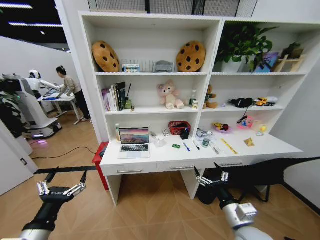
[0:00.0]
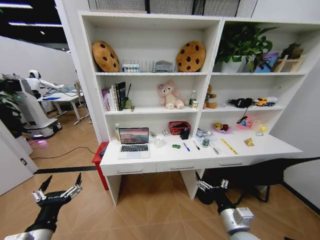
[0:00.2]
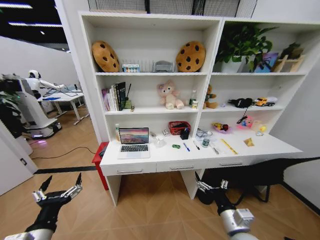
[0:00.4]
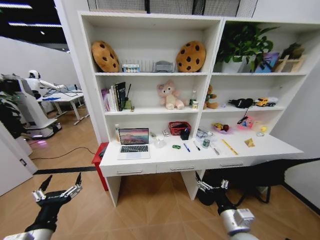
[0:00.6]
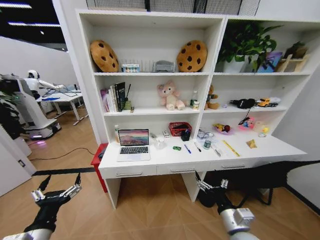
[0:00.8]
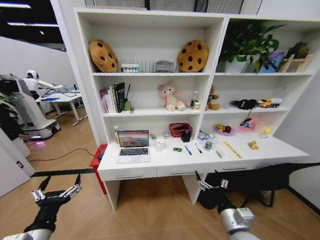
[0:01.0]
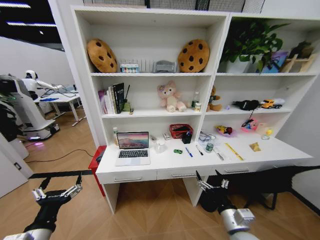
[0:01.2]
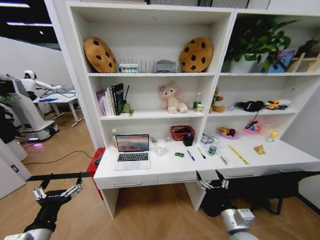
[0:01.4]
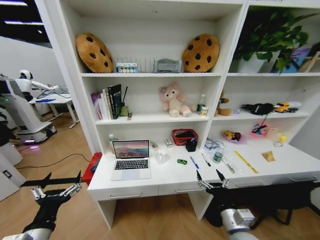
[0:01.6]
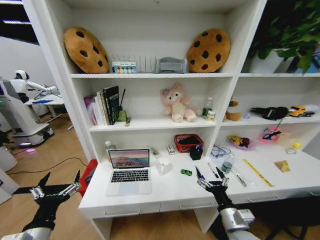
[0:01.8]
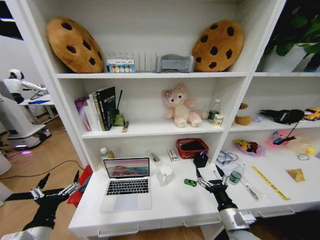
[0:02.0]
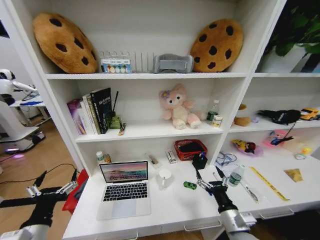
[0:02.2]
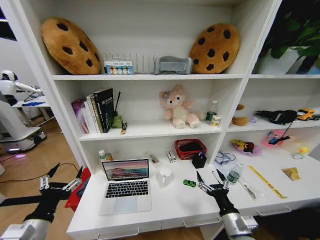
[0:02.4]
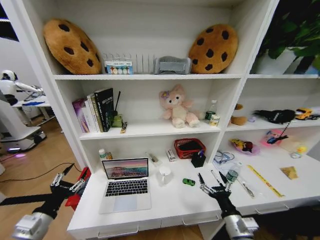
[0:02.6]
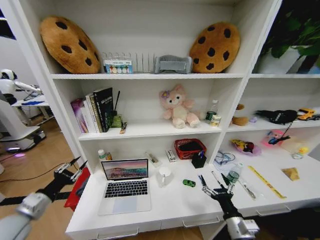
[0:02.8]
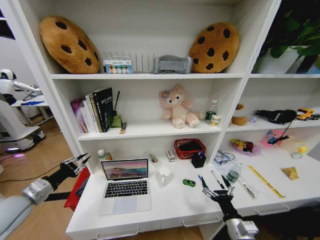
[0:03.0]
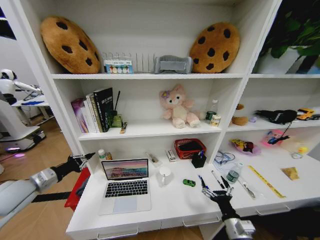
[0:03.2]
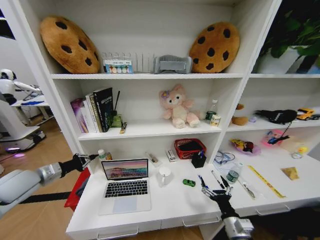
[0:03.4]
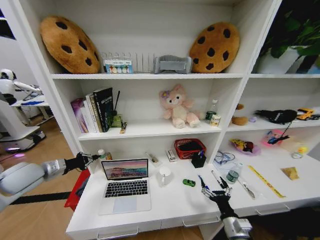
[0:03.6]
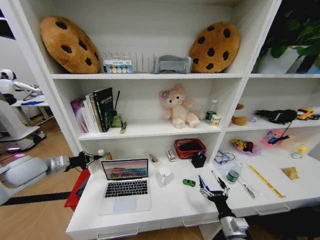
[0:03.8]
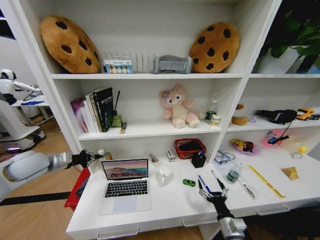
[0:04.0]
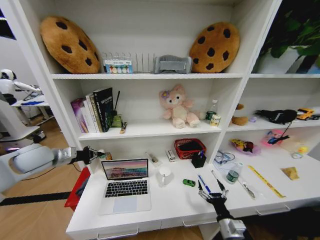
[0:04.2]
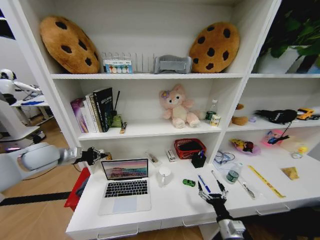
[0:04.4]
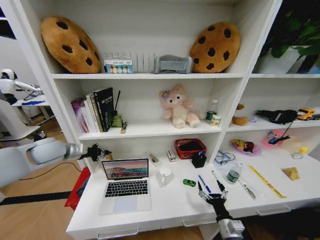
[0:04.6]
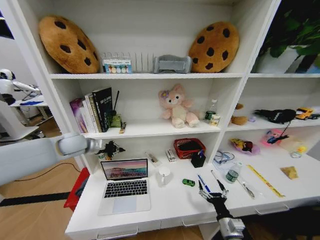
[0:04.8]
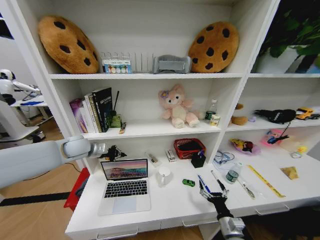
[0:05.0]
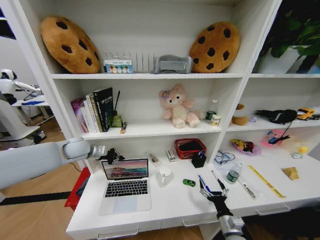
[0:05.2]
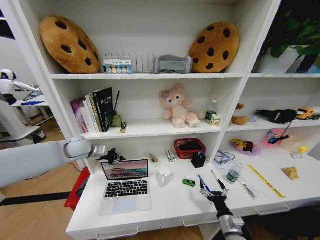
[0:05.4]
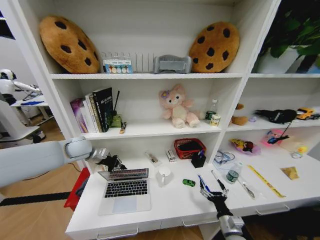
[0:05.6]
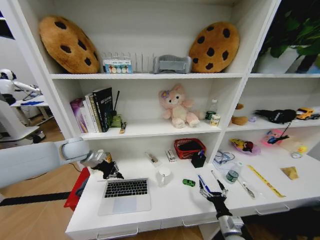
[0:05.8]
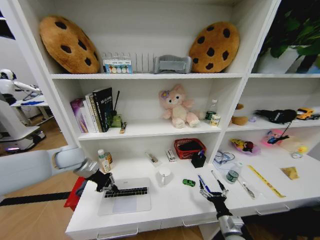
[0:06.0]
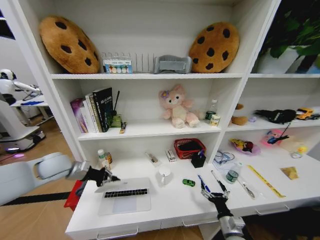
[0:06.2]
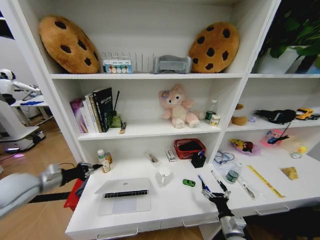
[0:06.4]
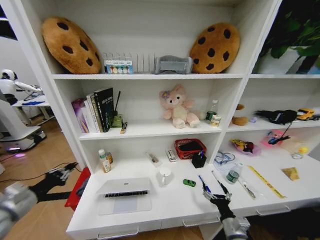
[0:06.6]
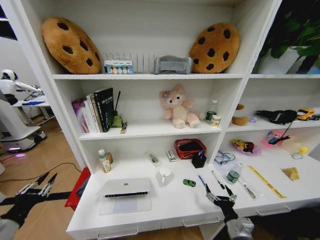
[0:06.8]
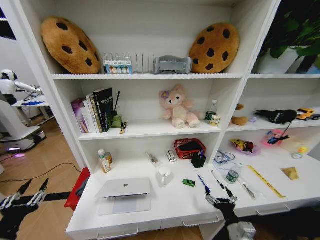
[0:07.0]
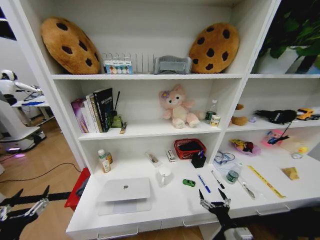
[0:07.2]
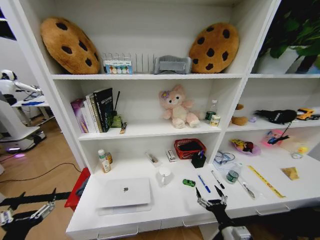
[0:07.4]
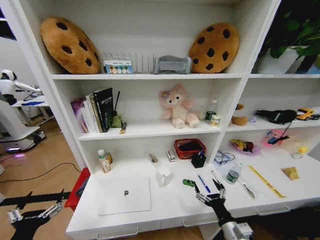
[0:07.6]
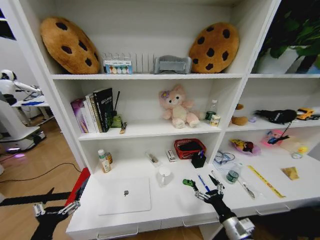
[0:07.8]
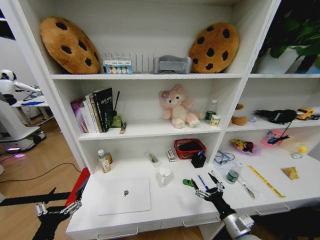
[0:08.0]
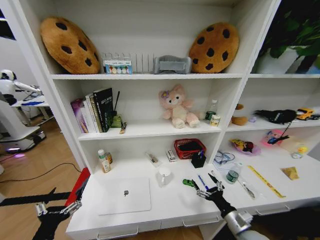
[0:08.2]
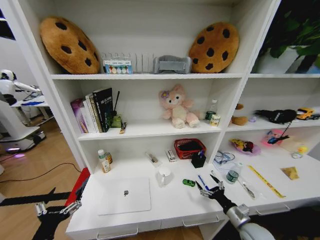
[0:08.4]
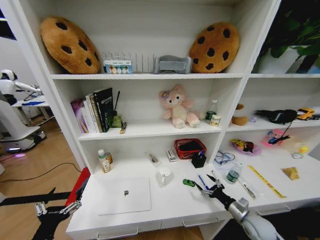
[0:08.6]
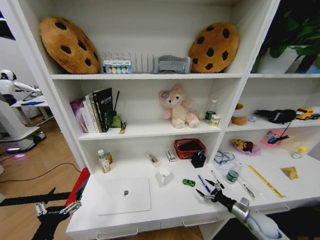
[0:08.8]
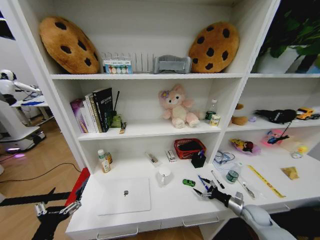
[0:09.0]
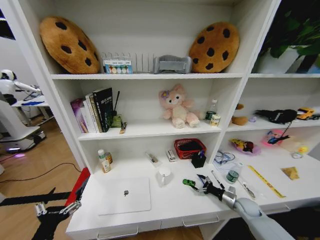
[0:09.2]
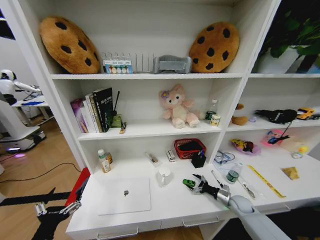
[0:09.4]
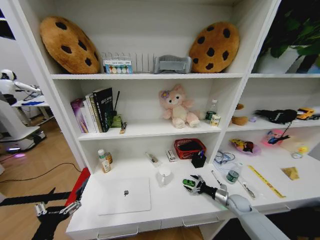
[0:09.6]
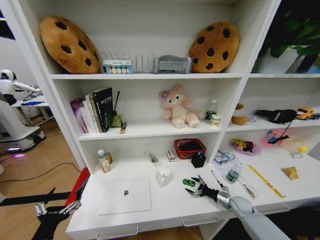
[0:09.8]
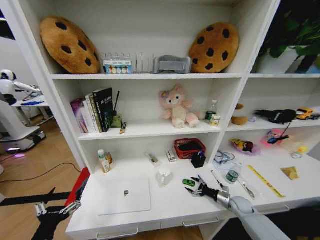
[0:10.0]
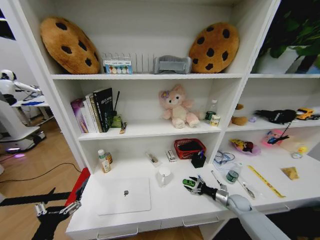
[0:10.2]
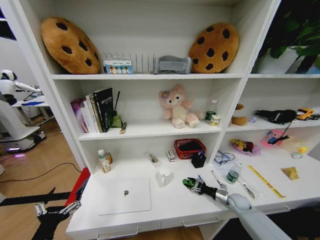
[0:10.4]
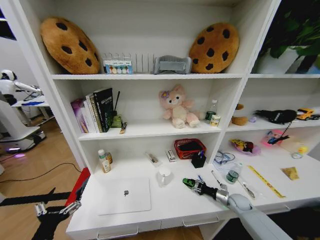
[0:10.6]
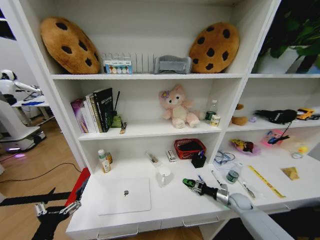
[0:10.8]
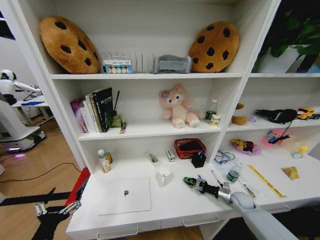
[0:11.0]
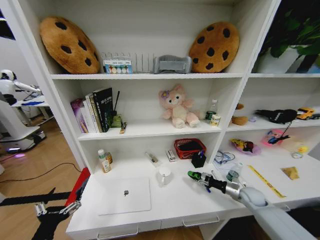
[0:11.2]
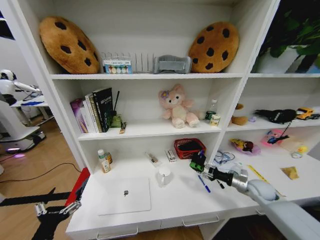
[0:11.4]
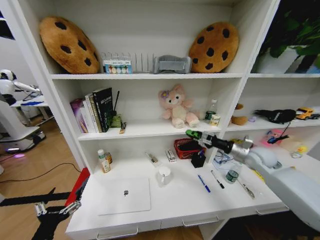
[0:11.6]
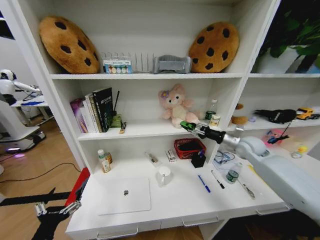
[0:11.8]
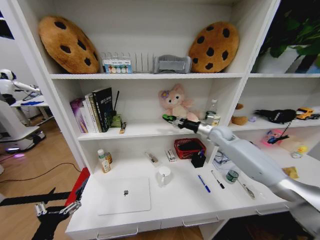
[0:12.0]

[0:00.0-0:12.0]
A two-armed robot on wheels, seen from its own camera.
Task of the whole recording: Organize the objects on the table.
0:01.6 to 0:03.0: The left gripper is displaced forward and to the left by about 20 cm, and closes.
0:03.0 to 0:04.4: The right gripper goes some 5 cm downward. The left gripper shifts approximately 20 cm forward and upward.
0:04.4 to 0:06.0: The left gripper is displaced to the right by roughly 5 cm.
0:06.0 to 0:07.6: The left gripper goes some 35 cm backward, and opens, while the right gripper moves upward, some 5 cm.
0:07.6 to 0:09.0: The right gripper goes some 25 cm to the right, forward and downward.
0:09.0 to 0:10.4: The right gripper goes about 5 cm forward, and closes up.
0:10.4 to 0:12.0: The right gripper shifts some 35 cm upward and forward.

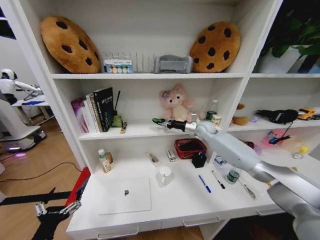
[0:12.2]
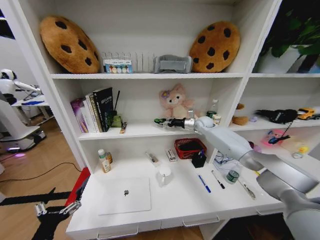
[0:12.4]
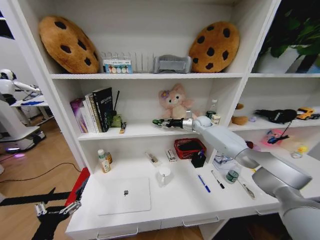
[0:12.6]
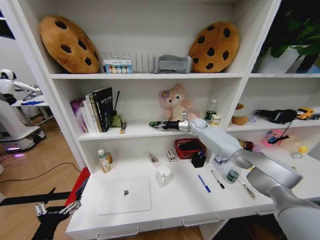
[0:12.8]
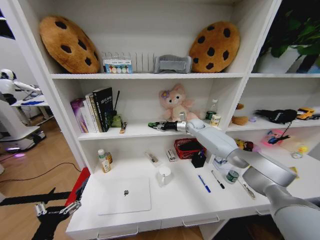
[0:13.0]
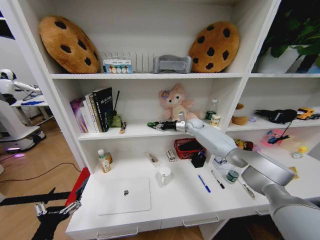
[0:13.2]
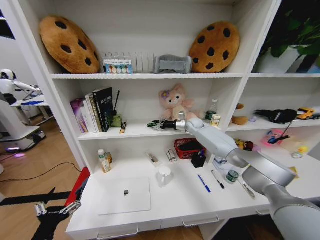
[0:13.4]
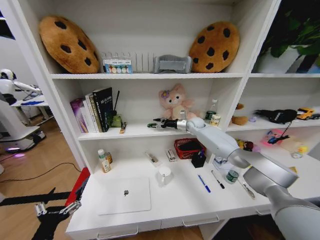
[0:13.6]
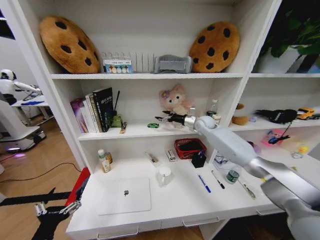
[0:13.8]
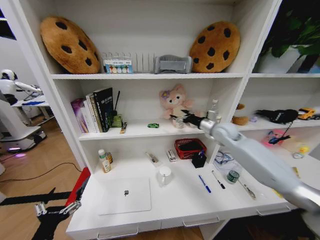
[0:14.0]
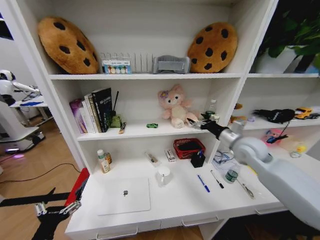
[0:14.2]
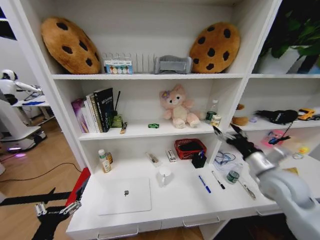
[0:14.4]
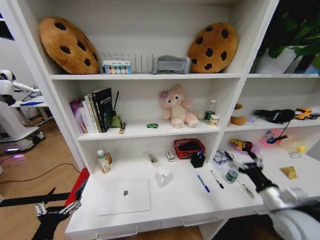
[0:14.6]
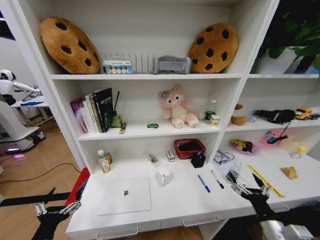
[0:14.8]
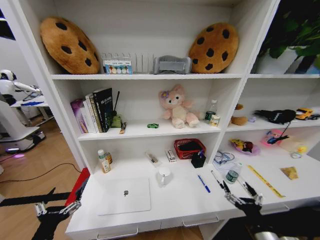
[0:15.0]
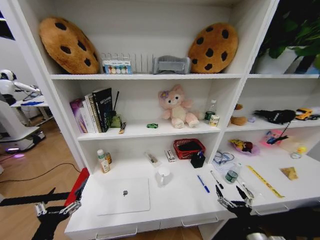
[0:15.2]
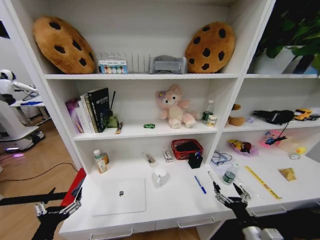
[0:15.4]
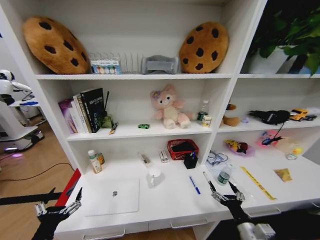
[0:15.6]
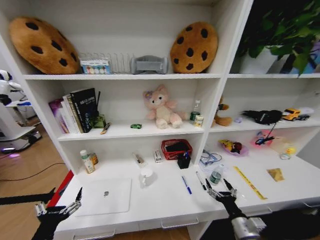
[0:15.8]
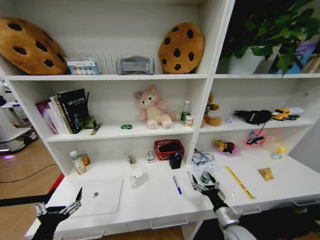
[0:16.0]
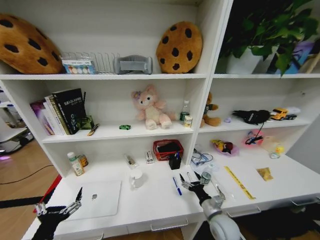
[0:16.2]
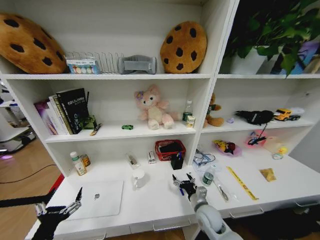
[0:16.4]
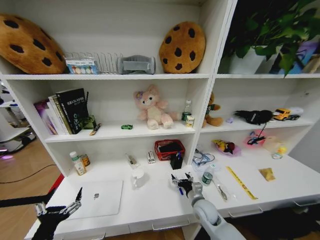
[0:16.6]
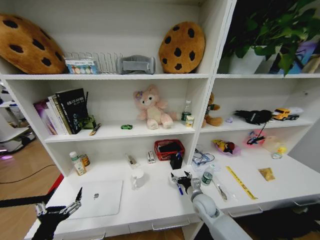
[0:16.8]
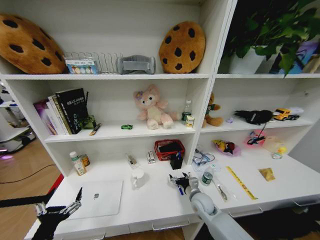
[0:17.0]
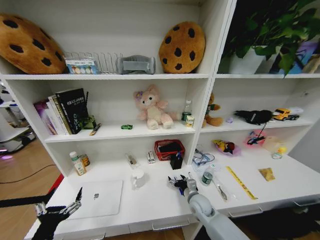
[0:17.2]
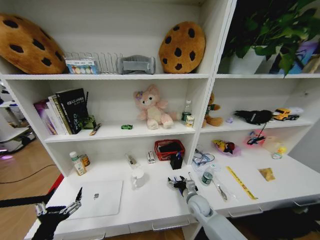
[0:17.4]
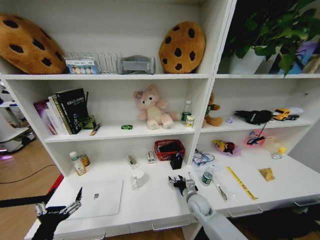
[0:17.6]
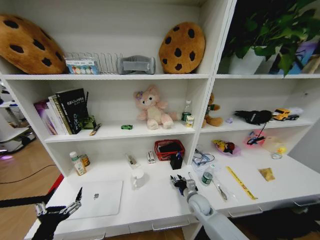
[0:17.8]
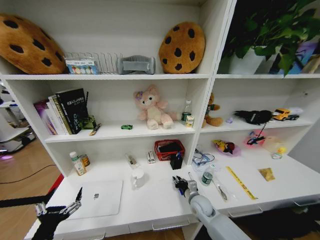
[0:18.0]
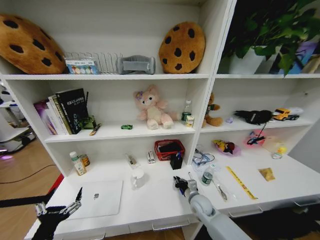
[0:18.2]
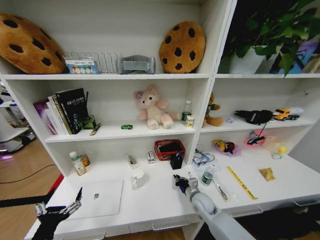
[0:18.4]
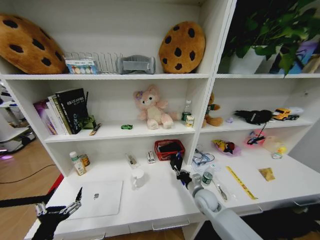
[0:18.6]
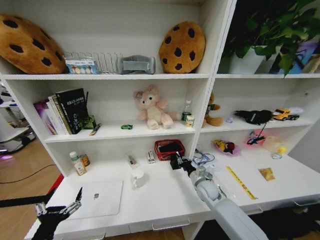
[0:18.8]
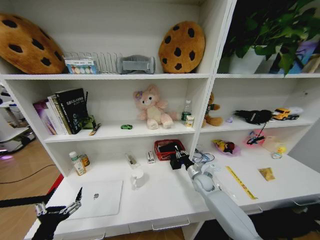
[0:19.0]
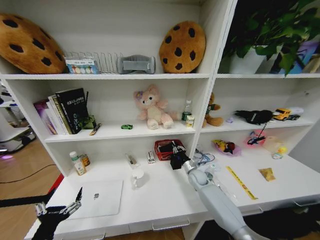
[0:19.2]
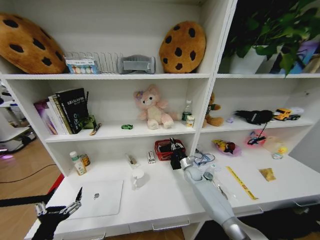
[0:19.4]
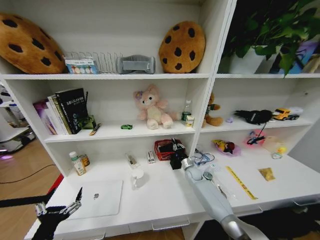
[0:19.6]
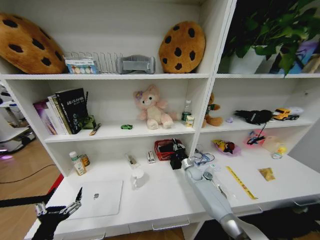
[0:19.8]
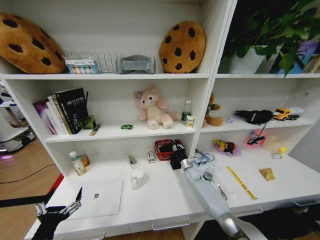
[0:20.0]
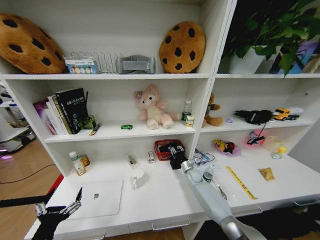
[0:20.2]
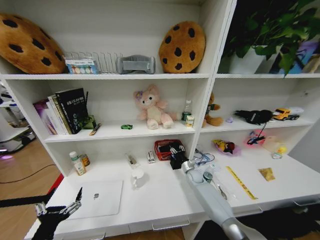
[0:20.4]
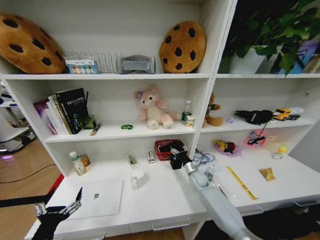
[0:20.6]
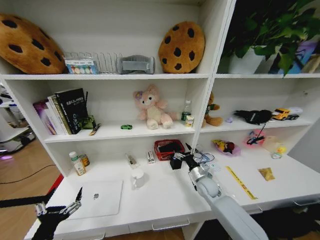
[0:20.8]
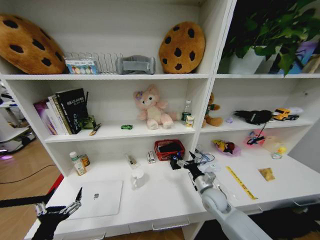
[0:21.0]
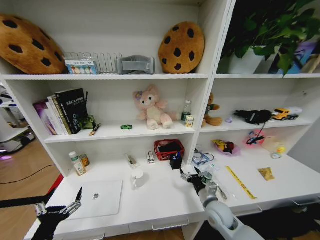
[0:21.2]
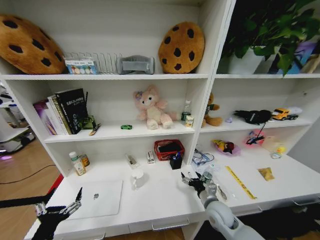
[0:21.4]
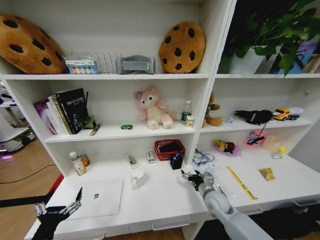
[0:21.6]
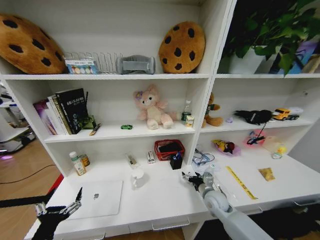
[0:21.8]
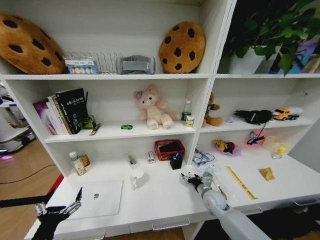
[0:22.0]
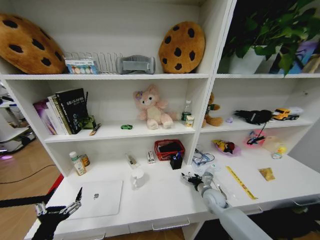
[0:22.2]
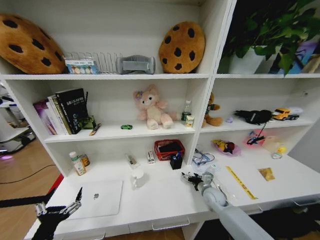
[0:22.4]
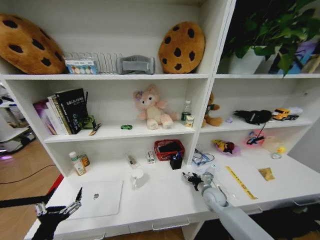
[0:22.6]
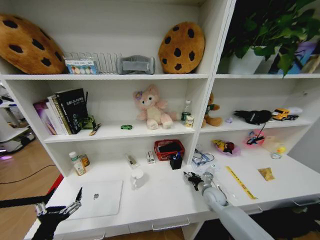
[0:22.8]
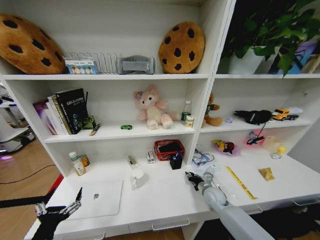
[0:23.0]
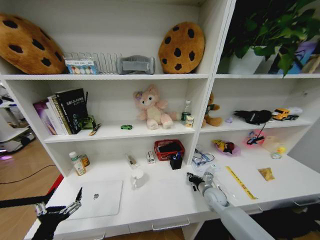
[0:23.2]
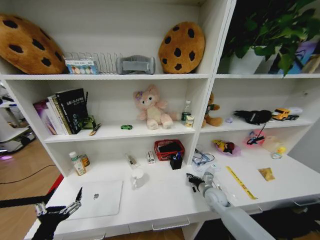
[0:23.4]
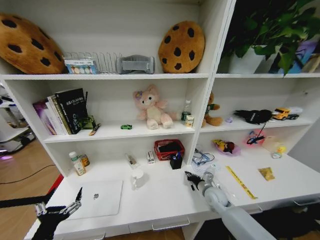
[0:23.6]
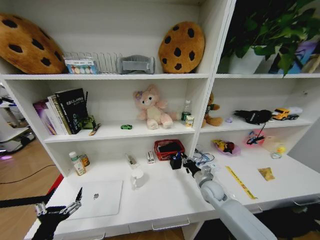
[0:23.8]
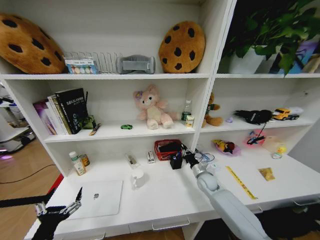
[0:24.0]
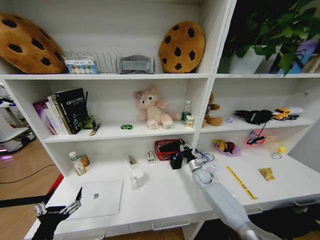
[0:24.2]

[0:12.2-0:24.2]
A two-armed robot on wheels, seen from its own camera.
Task of the whole recording: Organize the objects on the table.
0:12.2 to 0:13.8: The right gripper opens its fingers.
0:13.8 to 0:15.2: The right gripper is displaced backward and downward by some 60 cm.
0:15.2 to 0:16.6: The right gripper travels forward and to the left by some 25 cm.
0:16.6 to 0:18.2: The right gripper closes up.
0:18.2 to 0:19.8: The right gripper shifts some 20 cm forward.
0:19.8 to 0:21.2: The right gripper shifts some 20 cm backward, and opens its fingers.
0:21.2 to 0:22.6: The right gripper moves forward and downward, roughly 10 cm.
0:22.6 to 0:24.2: The right gripper goes approximately 10 cm forward, and closes.
